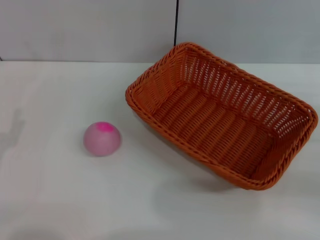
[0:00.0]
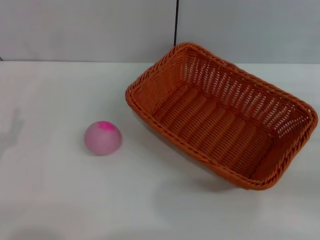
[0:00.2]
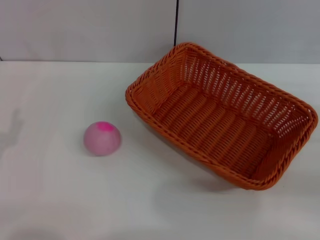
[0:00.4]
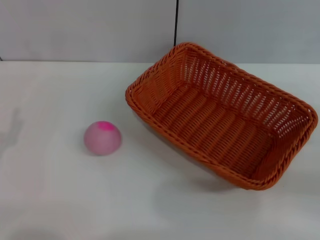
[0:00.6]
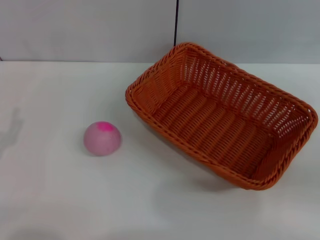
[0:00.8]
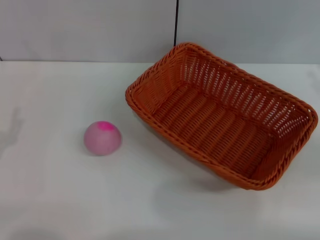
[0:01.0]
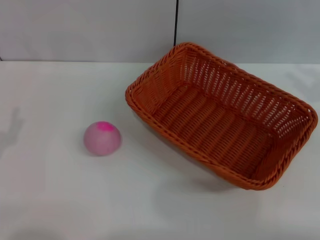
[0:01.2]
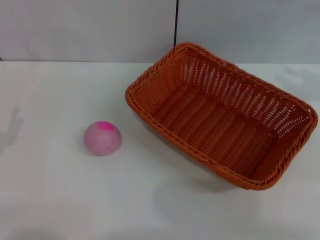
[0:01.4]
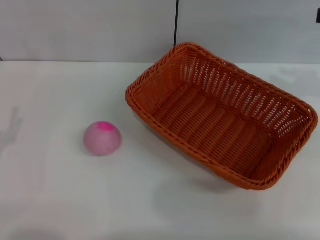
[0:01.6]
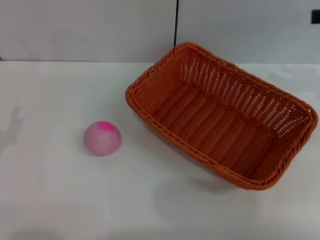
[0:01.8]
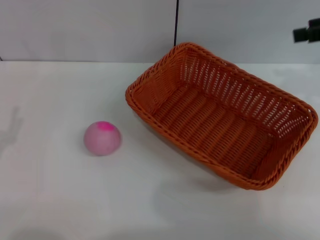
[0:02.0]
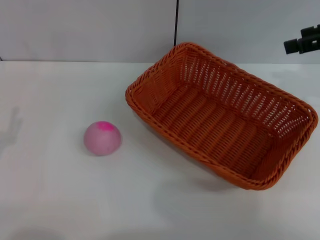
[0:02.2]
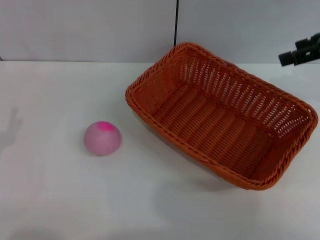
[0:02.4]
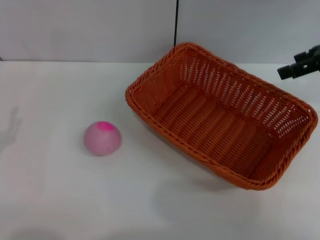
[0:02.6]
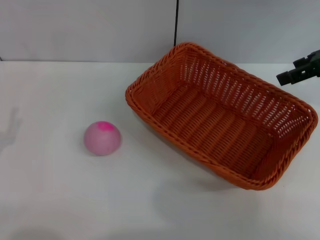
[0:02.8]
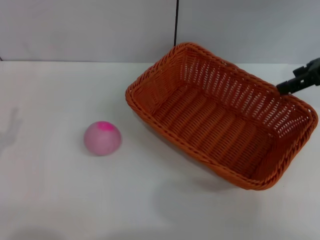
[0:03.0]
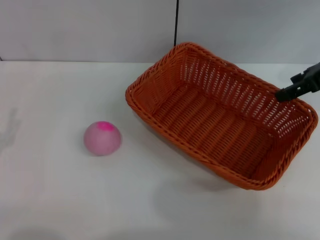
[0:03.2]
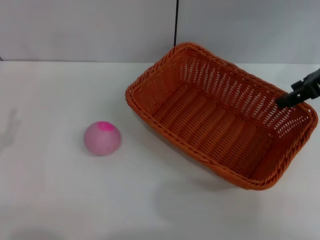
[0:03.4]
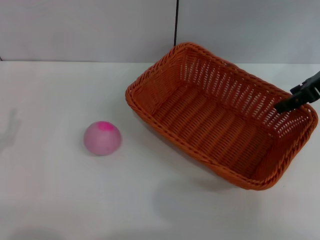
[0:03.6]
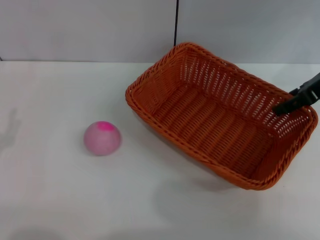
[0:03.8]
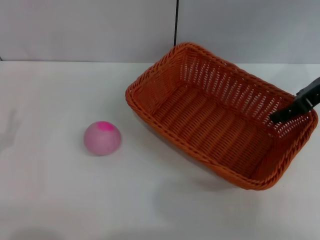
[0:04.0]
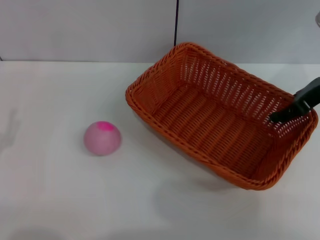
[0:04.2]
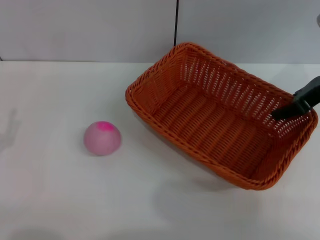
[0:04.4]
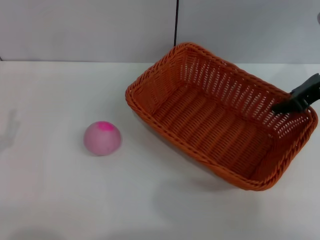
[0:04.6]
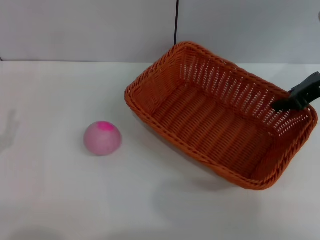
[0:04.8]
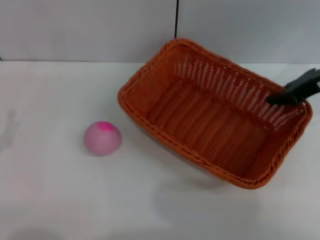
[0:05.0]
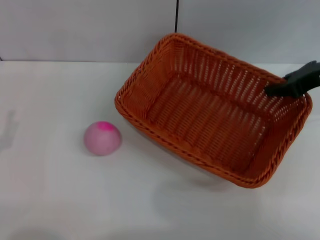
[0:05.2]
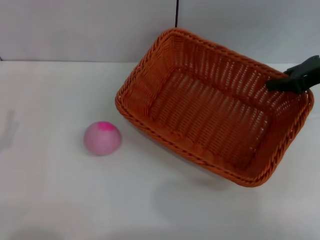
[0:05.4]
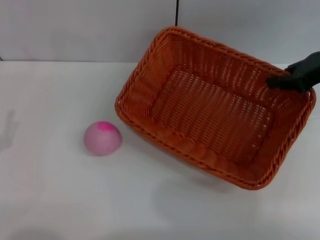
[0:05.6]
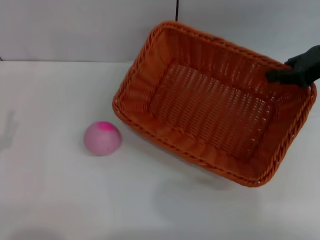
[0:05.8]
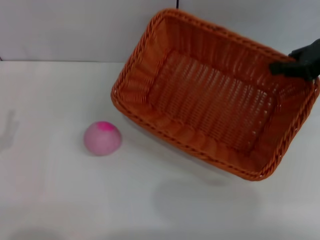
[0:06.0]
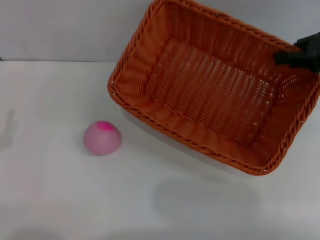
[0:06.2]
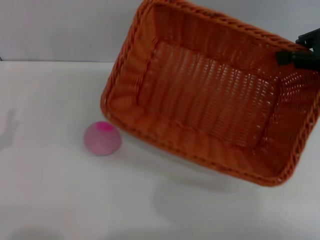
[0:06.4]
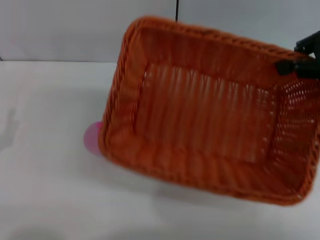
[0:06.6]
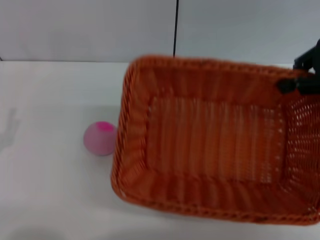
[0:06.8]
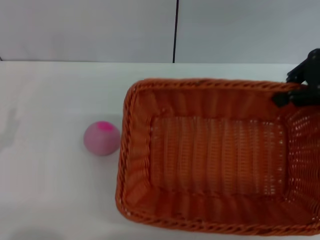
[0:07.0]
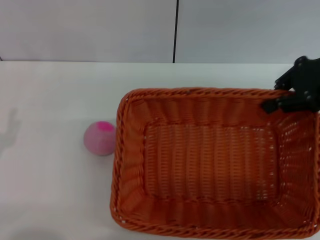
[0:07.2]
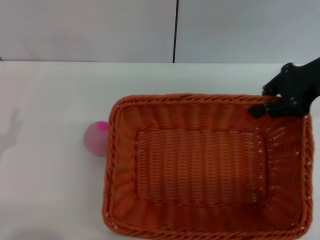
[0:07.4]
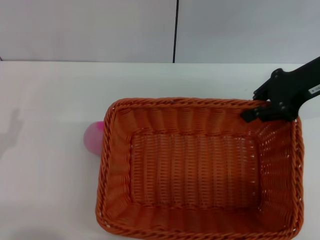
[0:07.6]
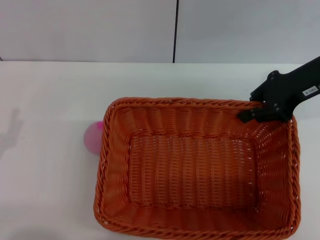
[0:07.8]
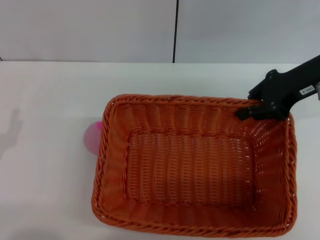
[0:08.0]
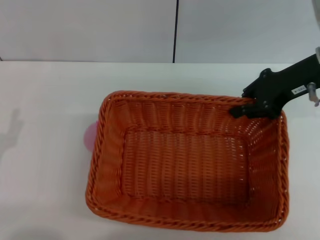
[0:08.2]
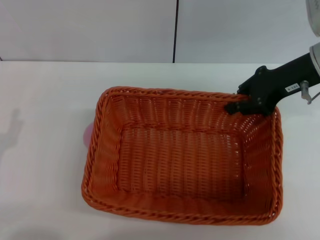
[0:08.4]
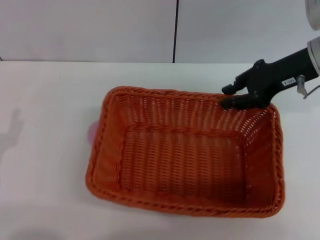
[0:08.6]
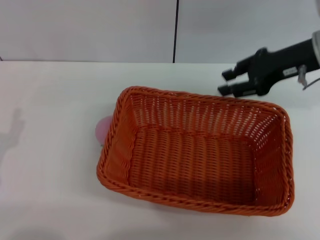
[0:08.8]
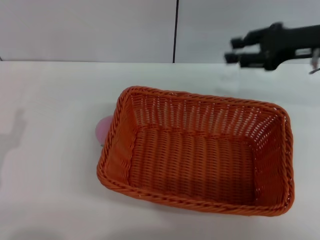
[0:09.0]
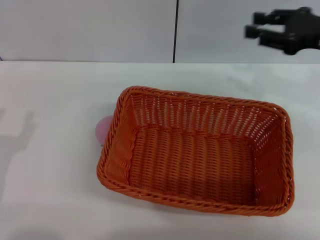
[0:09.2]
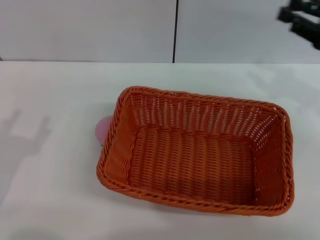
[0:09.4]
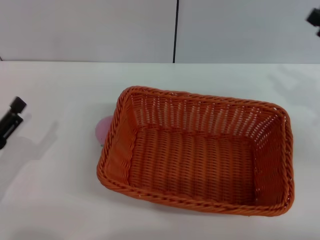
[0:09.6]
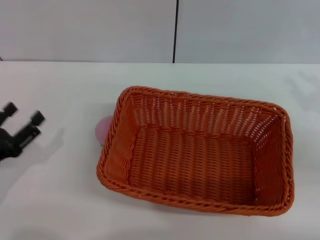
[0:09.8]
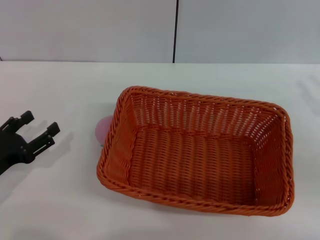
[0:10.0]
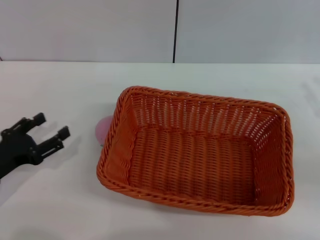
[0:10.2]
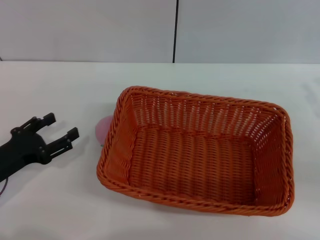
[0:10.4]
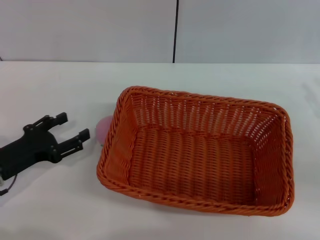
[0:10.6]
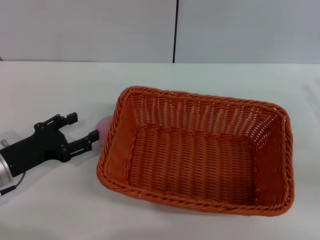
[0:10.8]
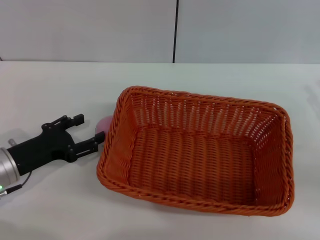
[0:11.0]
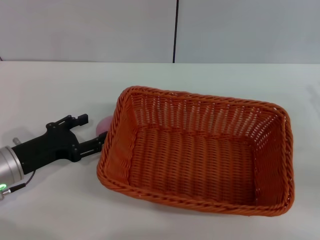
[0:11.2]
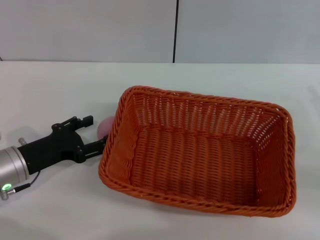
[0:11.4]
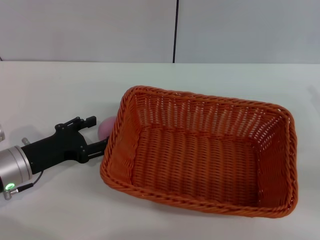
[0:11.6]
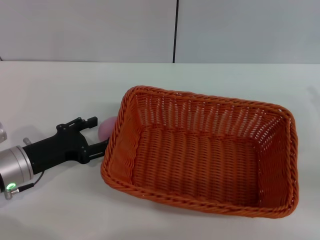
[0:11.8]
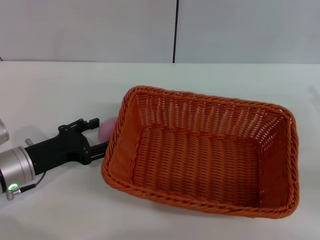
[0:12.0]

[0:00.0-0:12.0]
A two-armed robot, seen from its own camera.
Step, 0:00.0 to 0:05.8: Pick up the light basket with the right gripper.
Step, 0:06.2 to 0:09.0: Place the light basket in the center of view with the right gripper.
0:01.6 to 0:03.0: The right gripper shifts roughly 5 cm to the left, and opens its fingers.
0:03.0 to 0:04.4: The right gripper is displaced downward by approximately 5 cm.
0:04.4 to 0:06.0: The right gripper closes its fingers.
0:06.0 to 0:07.6: The right gripper goes roughly 5 cm to the left.
0:07.6 to 0:09.0: The right gripper opens up.
0:09.0 to 0:10.4: The left gripper travels forward by approximately 5 cm. Meanwhile the right gripper goes about 20 cm backward, to the right and downward.
0:10.4 to 0:12.0: The left gripper moves about 5 cm.

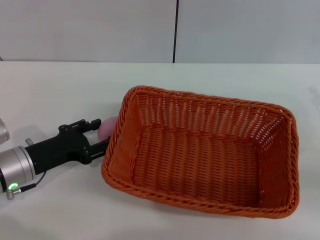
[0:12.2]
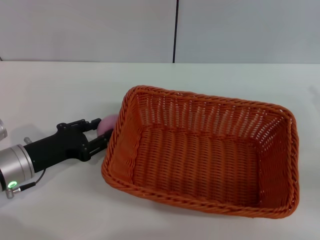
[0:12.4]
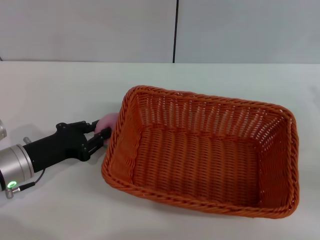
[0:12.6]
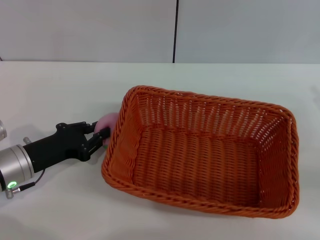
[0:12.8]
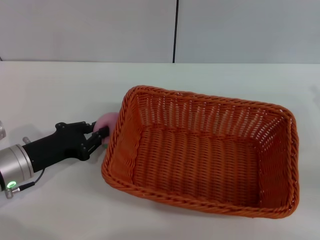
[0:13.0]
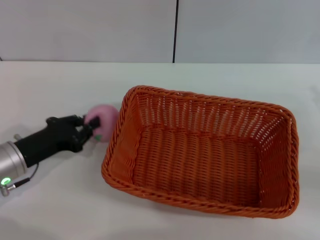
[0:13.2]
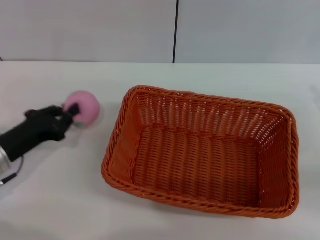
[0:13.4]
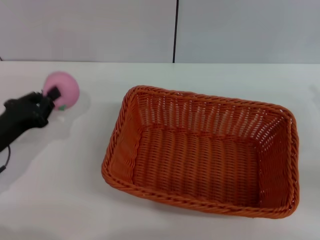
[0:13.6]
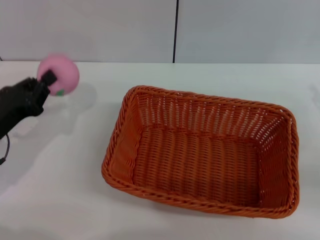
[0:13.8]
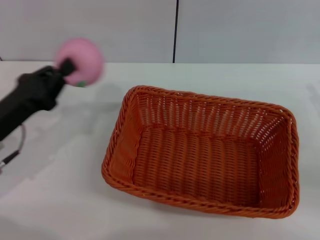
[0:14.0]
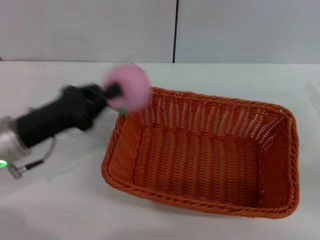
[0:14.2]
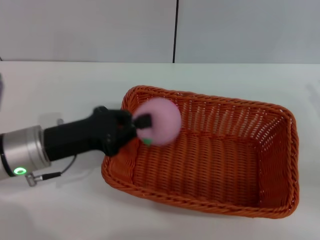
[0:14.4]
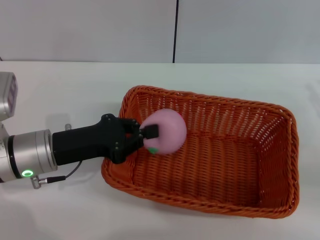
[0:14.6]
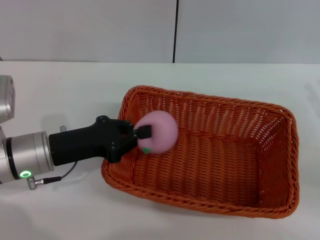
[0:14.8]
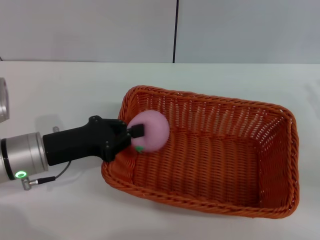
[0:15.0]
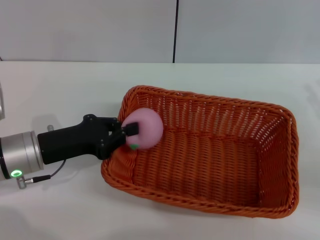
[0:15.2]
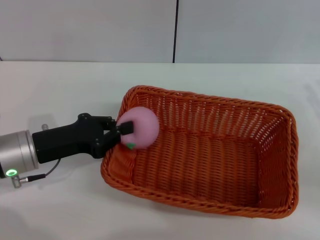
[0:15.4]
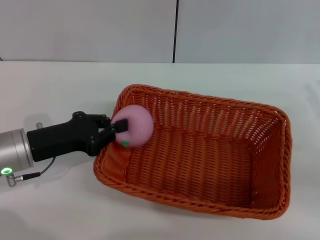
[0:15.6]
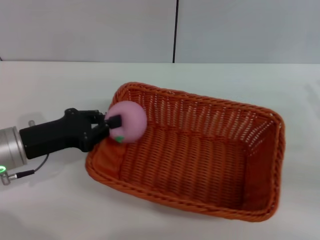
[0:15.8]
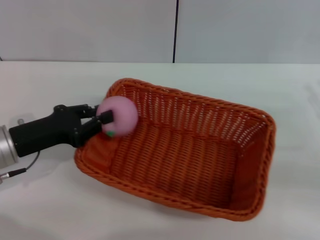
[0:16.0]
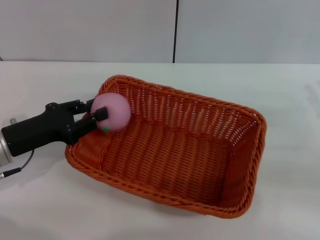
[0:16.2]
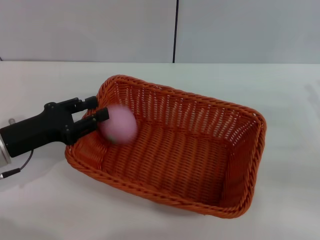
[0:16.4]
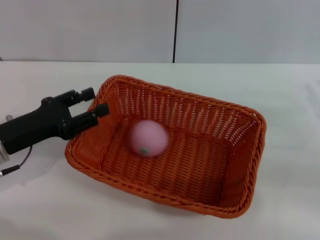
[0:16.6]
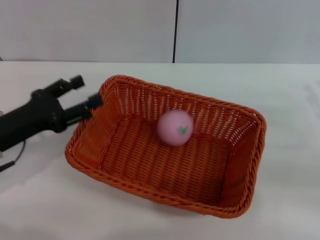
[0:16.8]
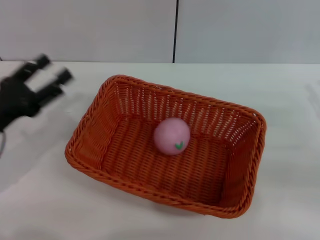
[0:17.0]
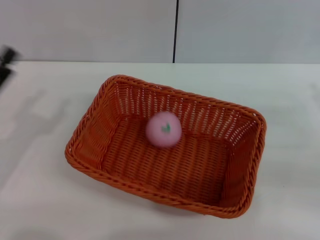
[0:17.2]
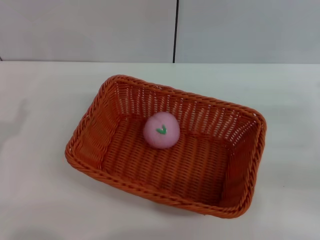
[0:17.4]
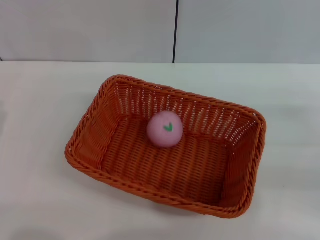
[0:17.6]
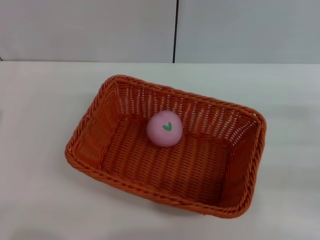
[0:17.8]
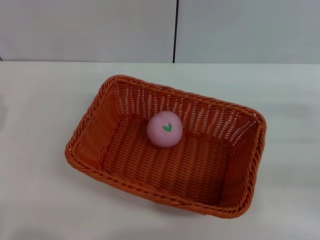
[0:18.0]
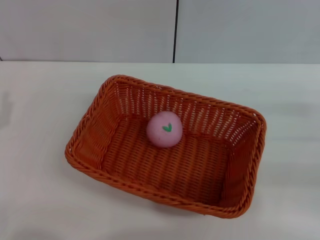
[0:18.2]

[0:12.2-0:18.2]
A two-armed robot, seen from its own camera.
Step, 0:13.8 to 0:16.8: Place the peach into the basket with the left gripper.
0:12.2 to 0:13.8: The left gripper changes place by roughly 5 cm, and closes.
0:13.8 to 0:15.2: The left gripper shifts about 5 cm to the right.
0:15.2 to 0:16.6: The left gripper opens its fingers.
0:16.6 to 0:18.2: The left gripper moves backward, roughly 5 cm, and opens.

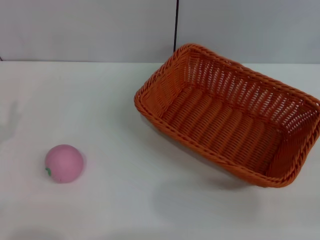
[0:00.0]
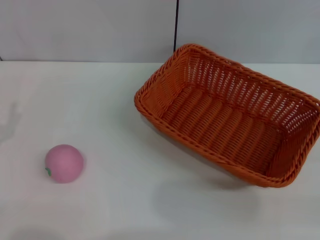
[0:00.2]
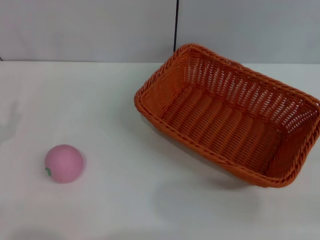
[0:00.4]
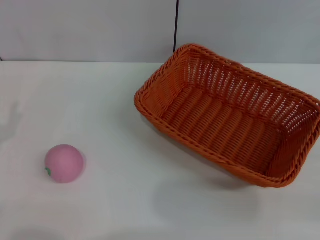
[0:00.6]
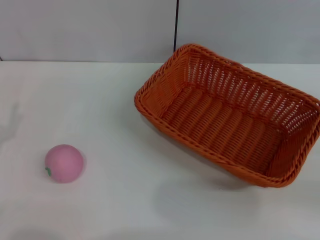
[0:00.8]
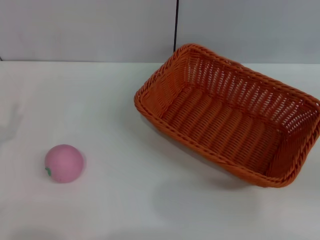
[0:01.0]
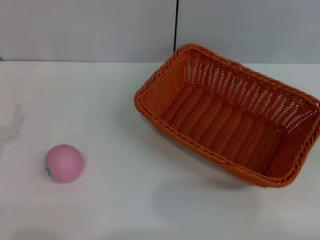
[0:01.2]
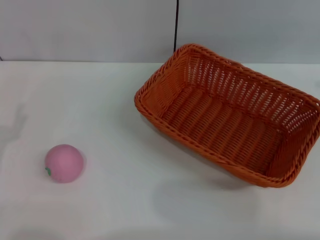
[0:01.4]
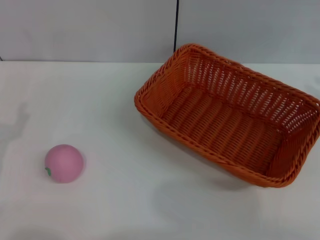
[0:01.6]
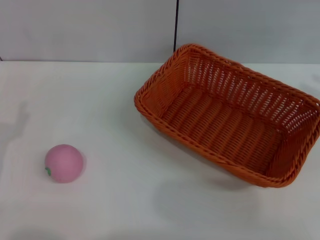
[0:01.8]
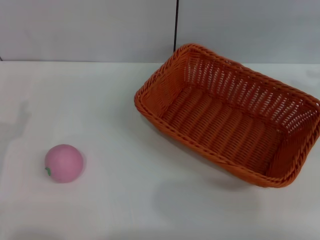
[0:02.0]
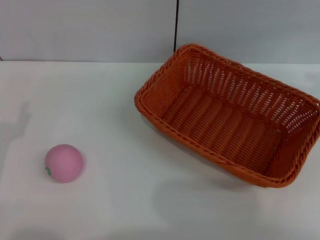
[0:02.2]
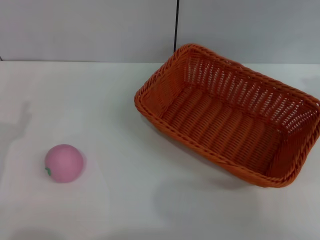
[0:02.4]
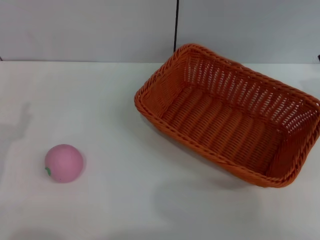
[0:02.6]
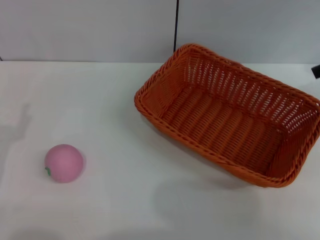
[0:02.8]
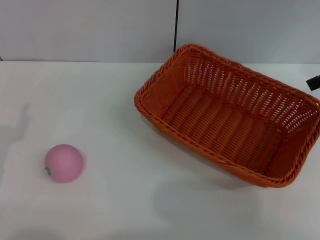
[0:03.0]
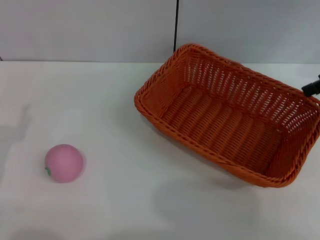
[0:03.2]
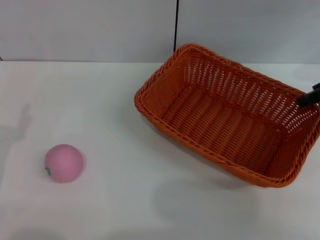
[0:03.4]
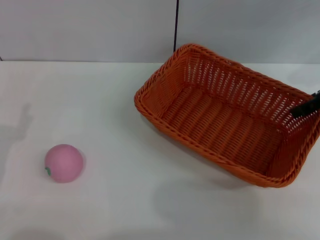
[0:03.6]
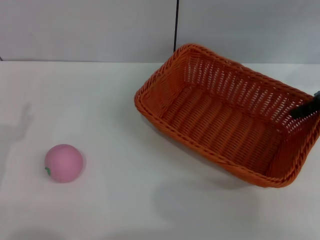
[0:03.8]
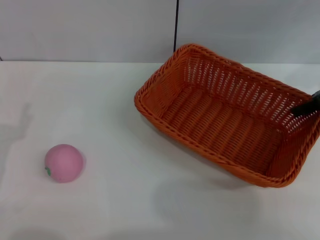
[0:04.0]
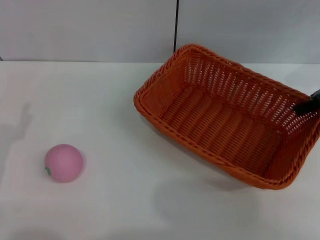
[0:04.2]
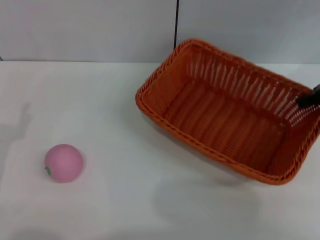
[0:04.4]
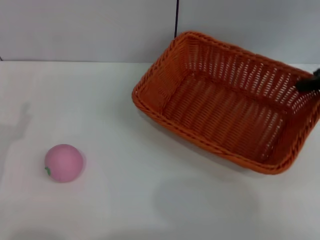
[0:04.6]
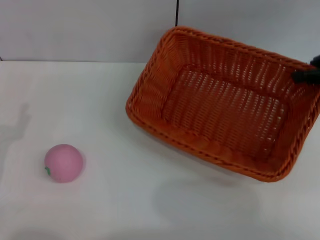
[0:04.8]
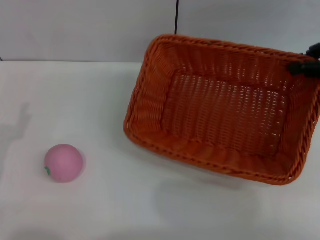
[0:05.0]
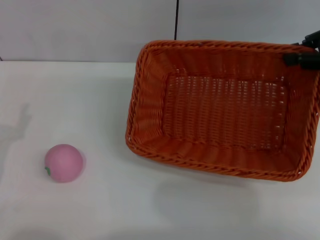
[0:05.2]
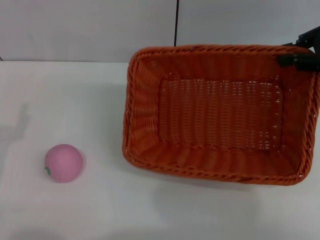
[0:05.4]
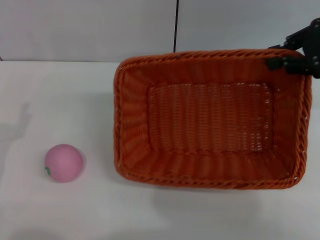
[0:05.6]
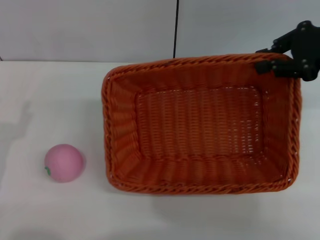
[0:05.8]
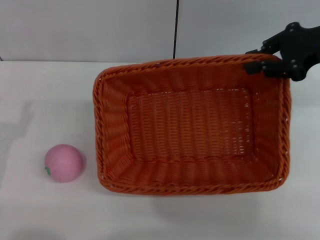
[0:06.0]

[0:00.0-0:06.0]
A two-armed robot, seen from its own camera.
Step, 0:00.0 to 0:05.2: Pick up the light basket with the right gripper.
0:03.0 to 0:04.4: The right gripper closes up.
